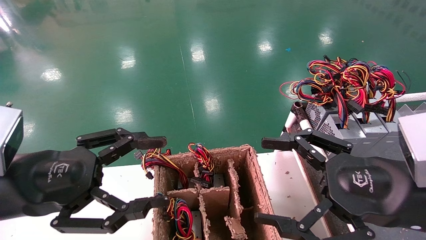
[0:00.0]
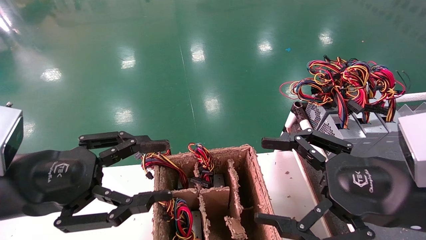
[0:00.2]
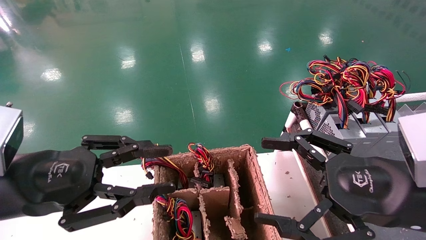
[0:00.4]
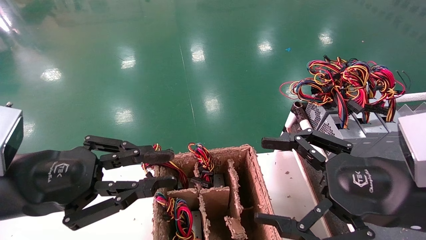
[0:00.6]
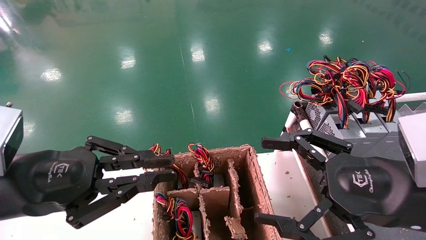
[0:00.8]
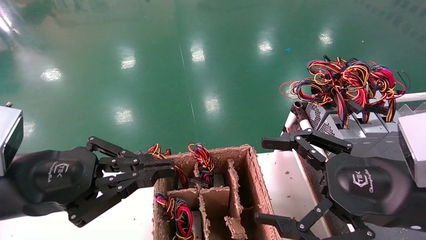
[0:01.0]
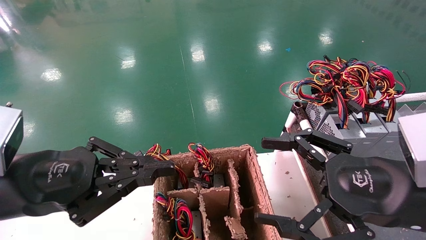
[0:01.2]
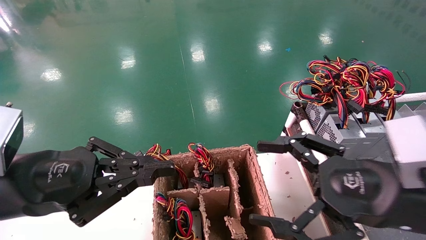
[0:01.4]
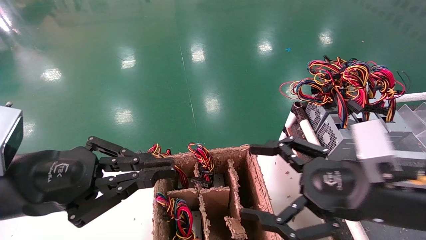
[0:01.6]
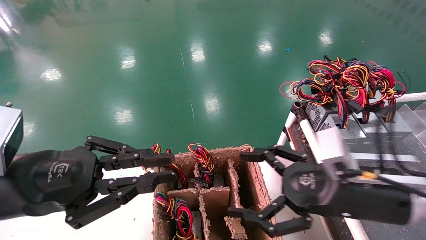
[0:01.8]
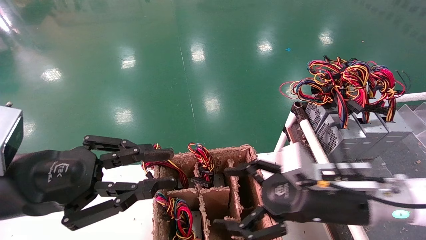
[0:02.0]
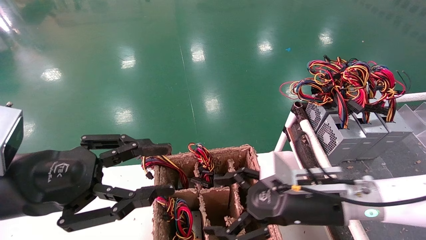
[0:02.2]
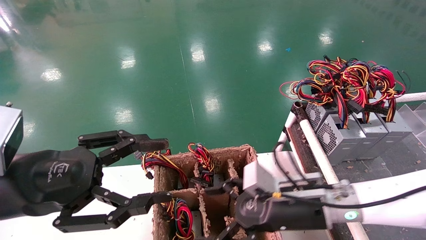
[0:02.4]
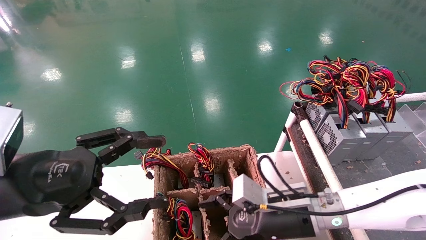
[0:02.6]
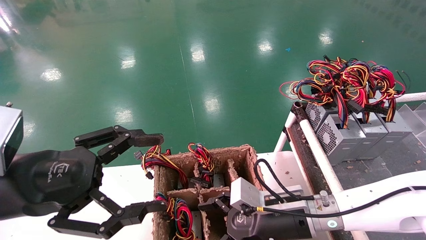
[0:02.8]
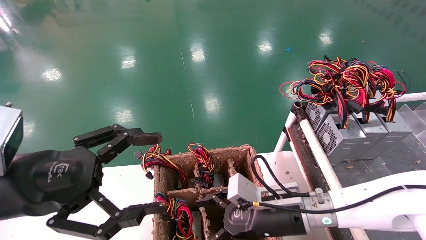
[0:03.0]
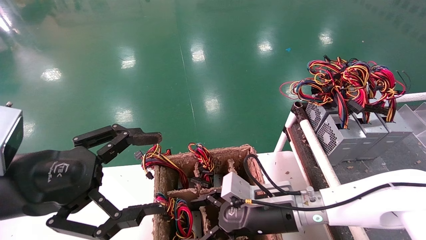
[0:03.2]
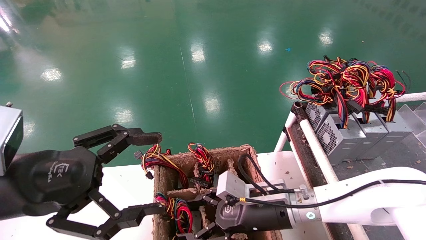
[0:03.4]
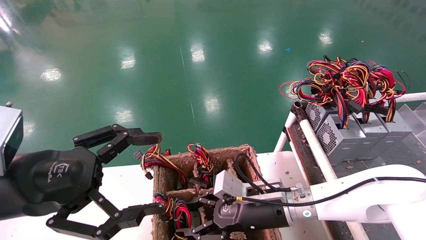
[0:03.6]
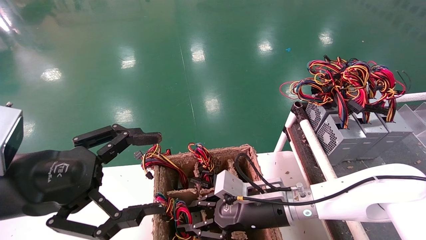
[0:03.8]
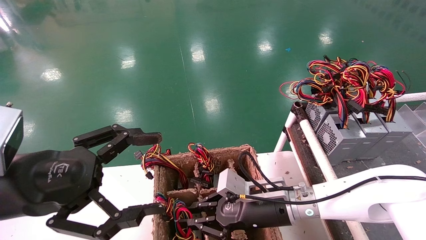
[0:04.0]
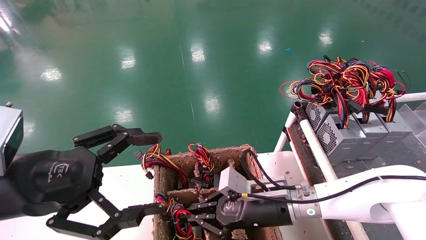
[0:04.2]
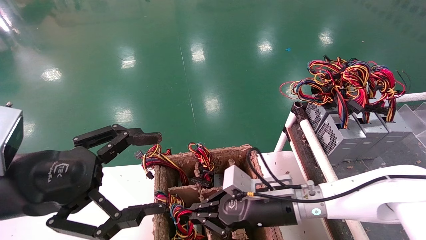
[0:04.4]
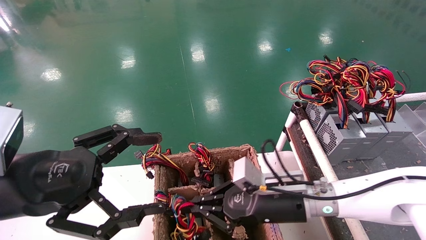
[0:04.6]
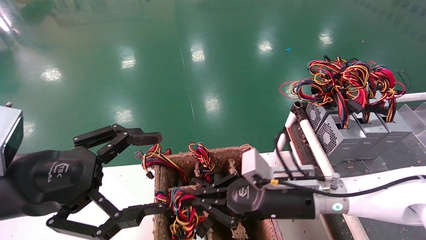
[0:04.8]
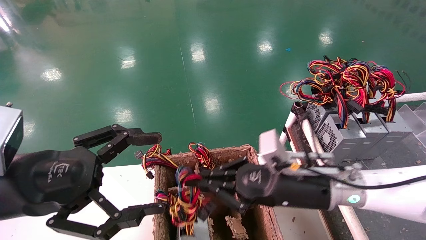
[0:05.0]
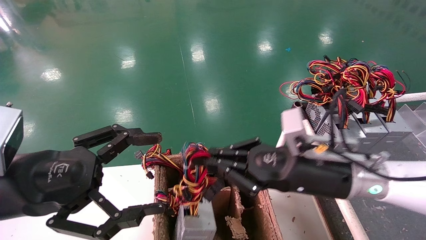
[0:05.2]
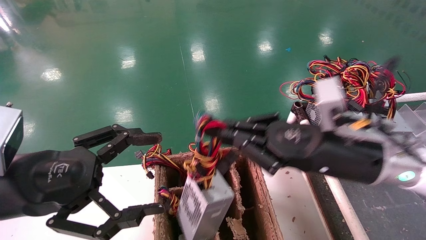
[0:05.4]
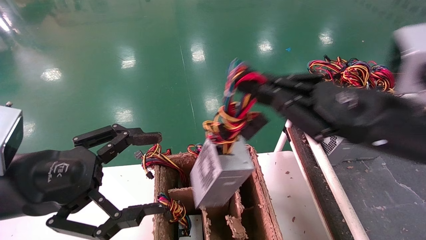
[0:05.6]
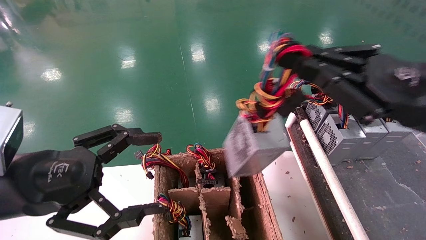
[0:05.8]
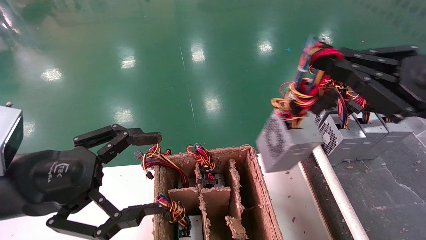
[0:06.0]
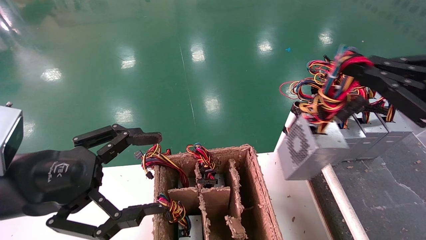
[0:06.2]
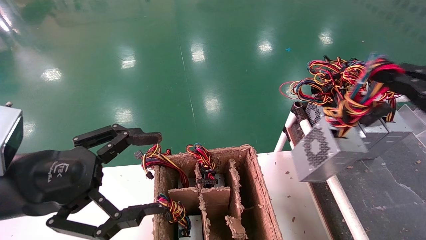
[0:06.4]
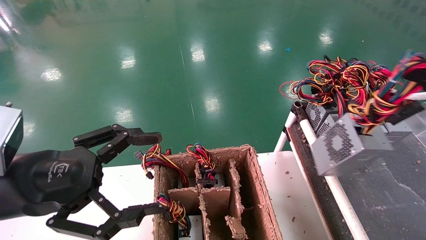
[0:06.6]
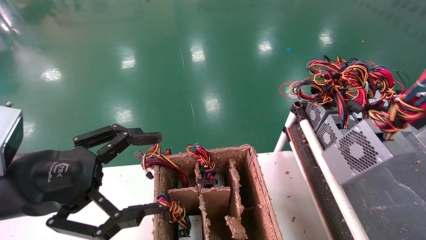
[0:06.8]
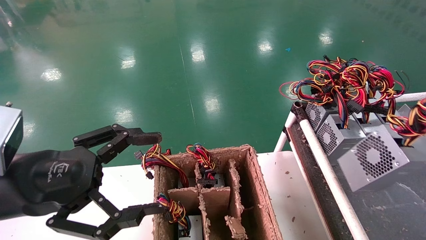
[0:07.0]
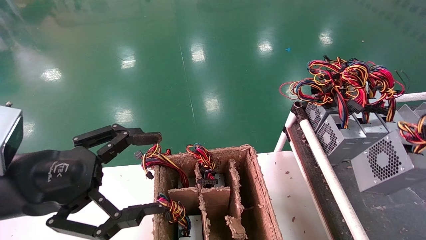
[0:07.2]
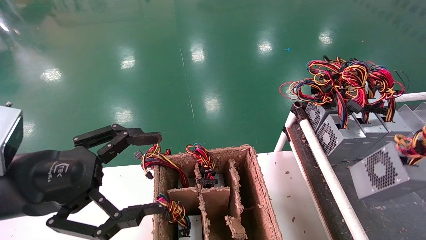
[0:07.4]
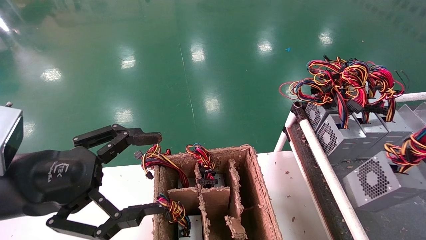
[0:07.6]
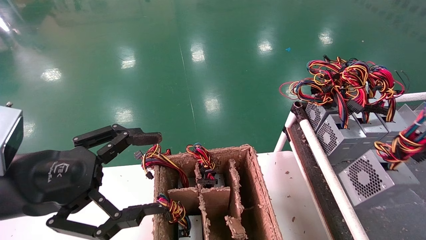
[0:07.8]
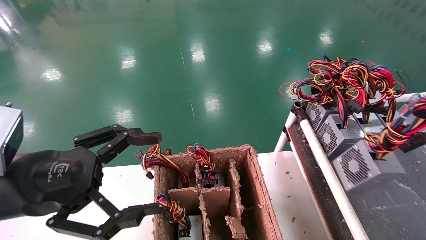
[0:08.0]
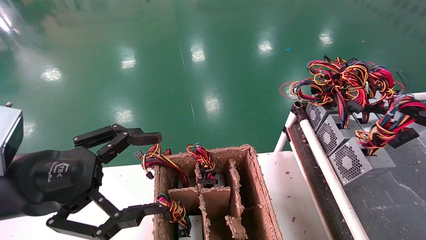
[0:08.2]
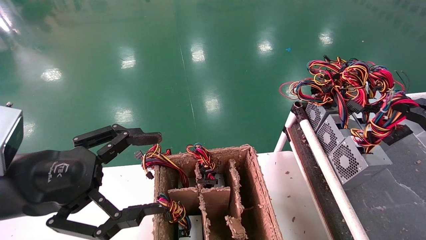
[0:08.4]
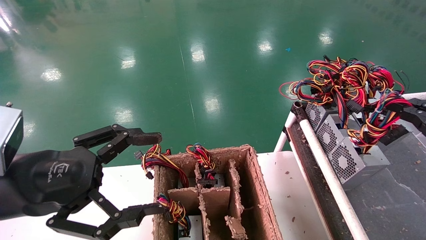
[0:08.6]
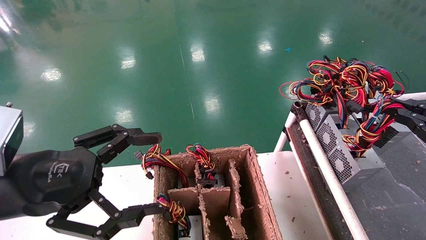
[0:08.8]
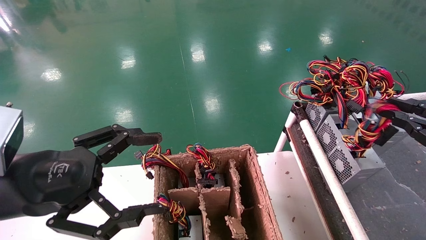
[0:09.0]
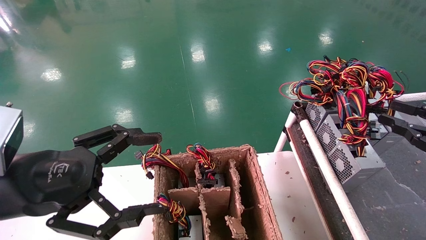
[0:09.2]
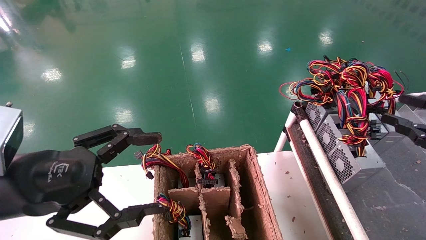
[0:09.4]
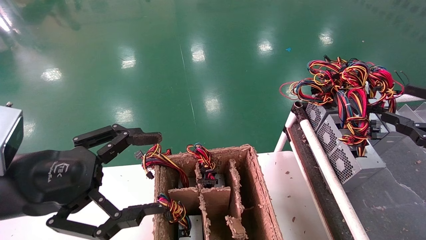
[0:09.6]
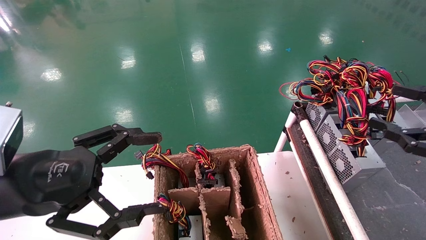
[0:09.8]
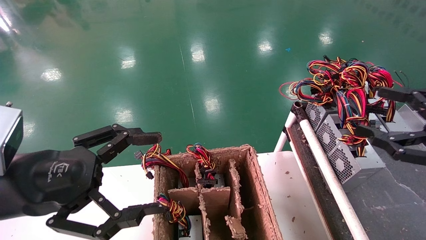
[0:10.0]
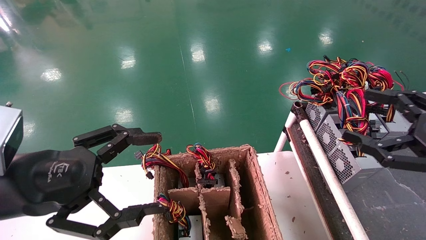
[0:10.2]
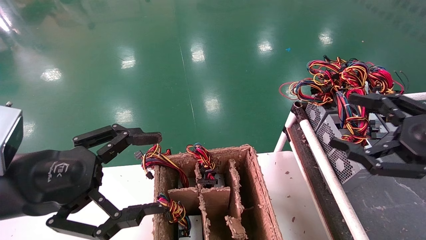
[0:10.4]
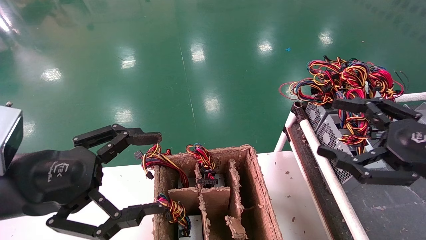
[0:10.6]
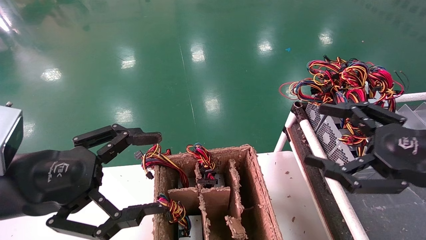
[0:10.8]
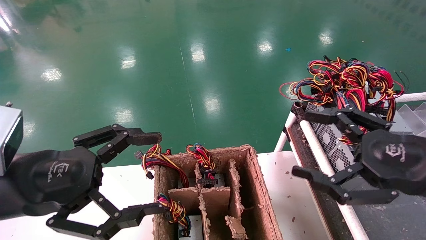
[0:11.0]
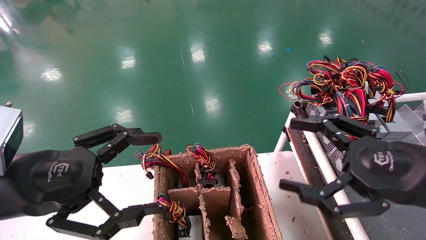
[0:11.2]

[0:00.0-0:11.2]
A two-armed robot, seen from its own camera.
Step, 0:01.8 to 0:05.2: Grab and lift the power supply from the large box.
Step, 0:05.4 to 0:09.6: Place the power supply on the operating table.
0:00.0 to 0:01.6: The left gripper closes its fingers.
0:01.6 to 0:03.2: The left gripper opens up. Meanwhile the right gripper is displaced to the left, downward and forward by about 20 cm.
0:03.2 to 0:04.8: The right gripper moves about 5 cm, and closes.
0:04.8 to 0:06.4: The right gripper is displaced to the right, upward and backward by about 30 cm.
0:06.4 to 0:08.0: The right gripper goes about 10 cm to the right and downward.
0:08.0 to 0:09.6: The right gripper opens up.
0:09.6 to 0:11.2: The right gripper travels to the left by roughly 15 cm, and opens.
